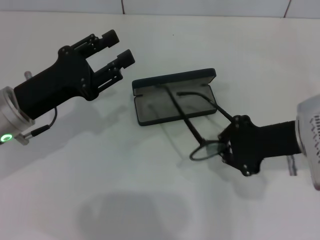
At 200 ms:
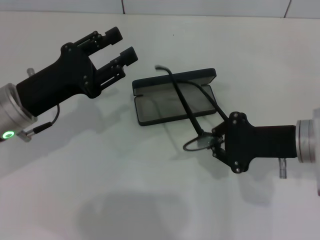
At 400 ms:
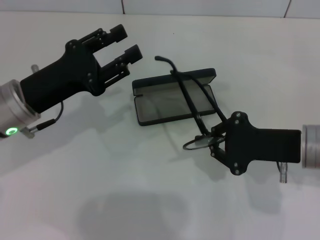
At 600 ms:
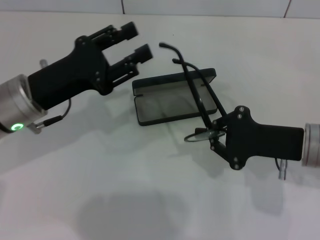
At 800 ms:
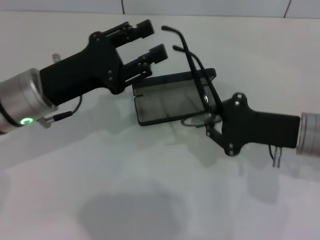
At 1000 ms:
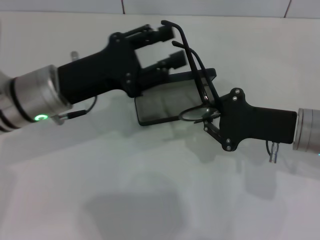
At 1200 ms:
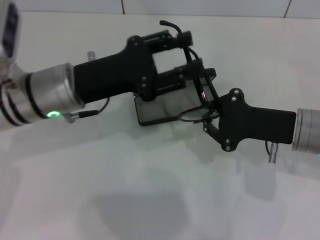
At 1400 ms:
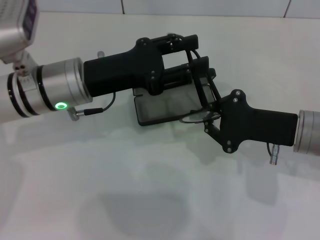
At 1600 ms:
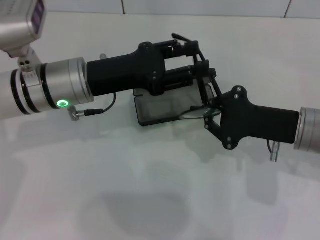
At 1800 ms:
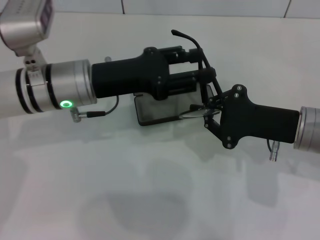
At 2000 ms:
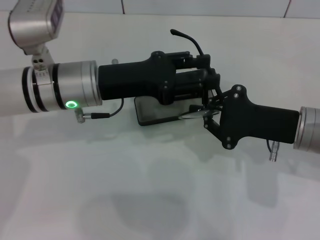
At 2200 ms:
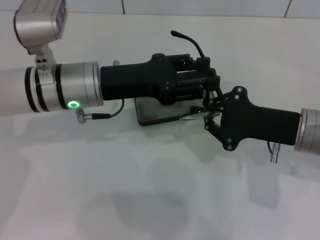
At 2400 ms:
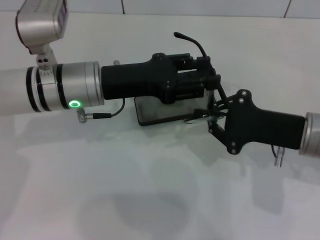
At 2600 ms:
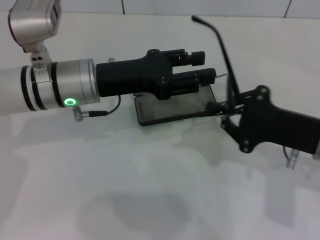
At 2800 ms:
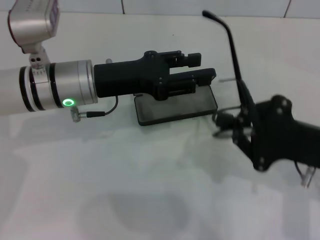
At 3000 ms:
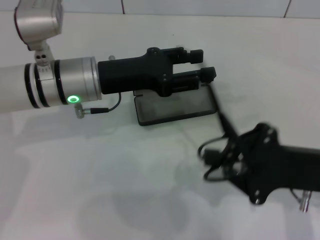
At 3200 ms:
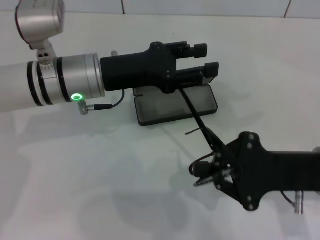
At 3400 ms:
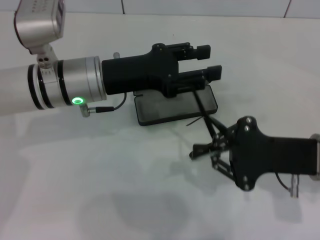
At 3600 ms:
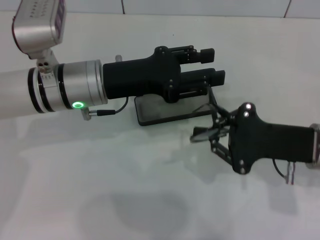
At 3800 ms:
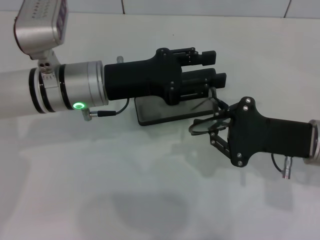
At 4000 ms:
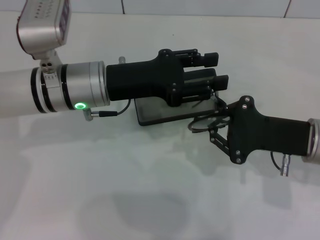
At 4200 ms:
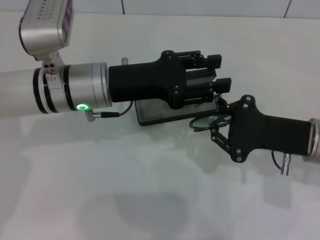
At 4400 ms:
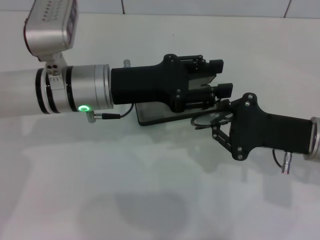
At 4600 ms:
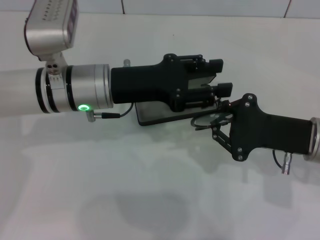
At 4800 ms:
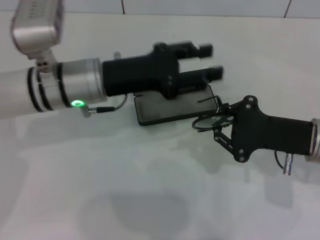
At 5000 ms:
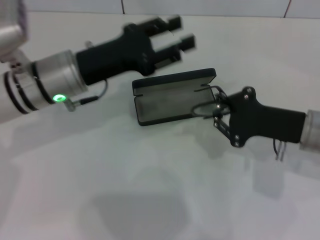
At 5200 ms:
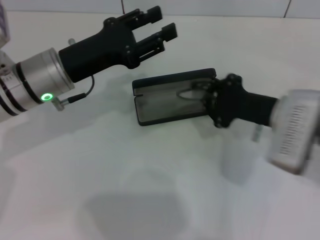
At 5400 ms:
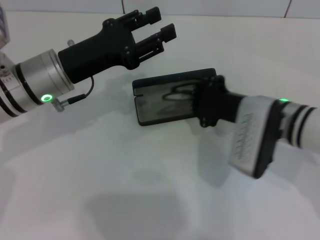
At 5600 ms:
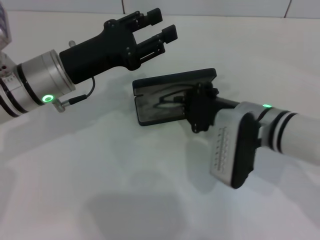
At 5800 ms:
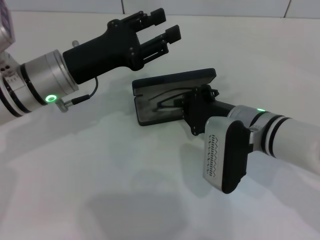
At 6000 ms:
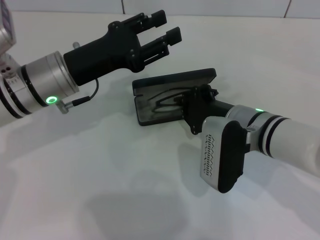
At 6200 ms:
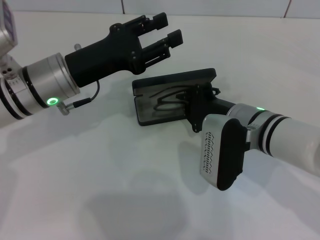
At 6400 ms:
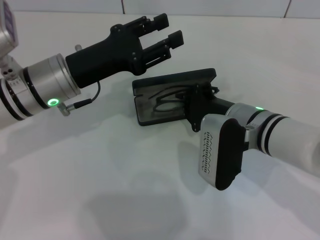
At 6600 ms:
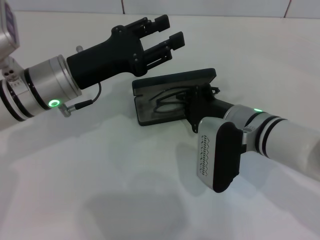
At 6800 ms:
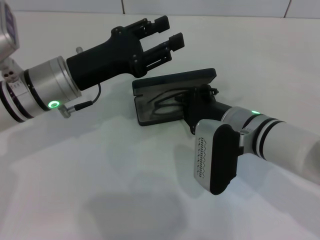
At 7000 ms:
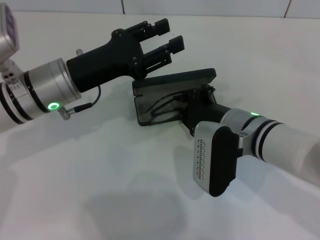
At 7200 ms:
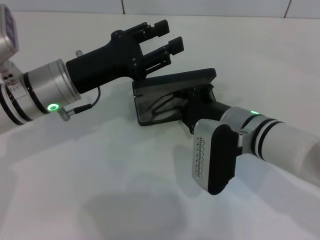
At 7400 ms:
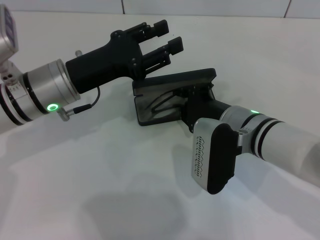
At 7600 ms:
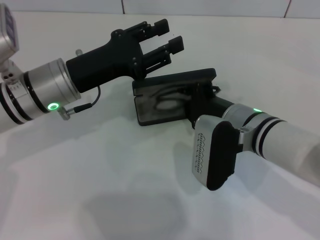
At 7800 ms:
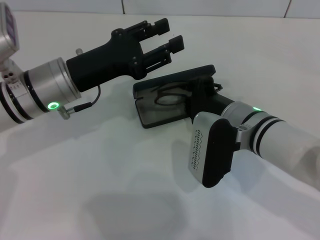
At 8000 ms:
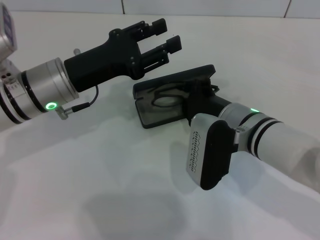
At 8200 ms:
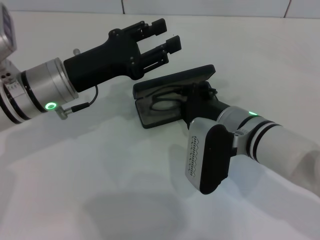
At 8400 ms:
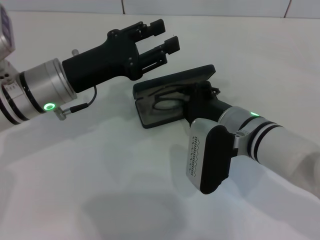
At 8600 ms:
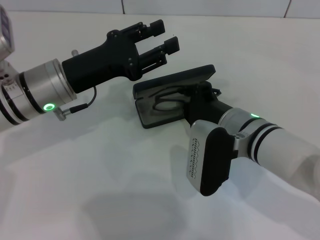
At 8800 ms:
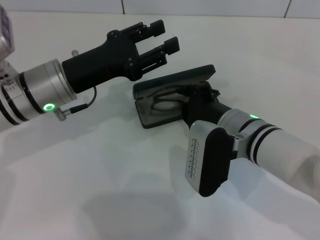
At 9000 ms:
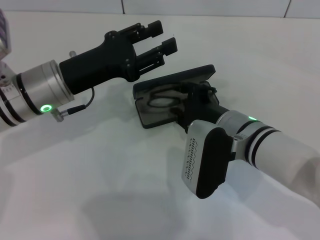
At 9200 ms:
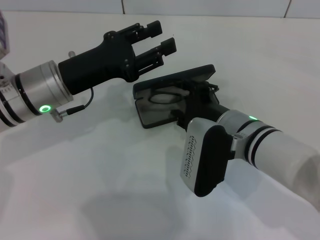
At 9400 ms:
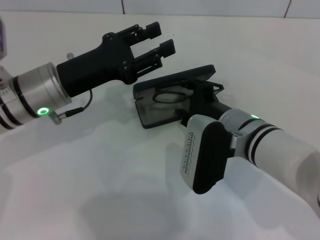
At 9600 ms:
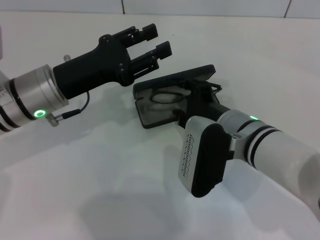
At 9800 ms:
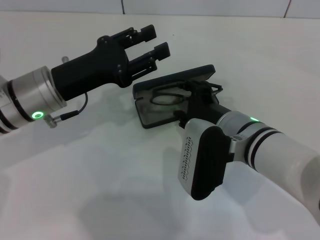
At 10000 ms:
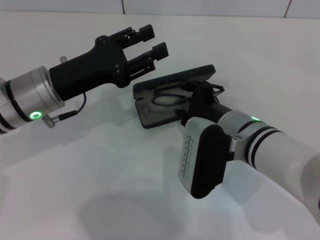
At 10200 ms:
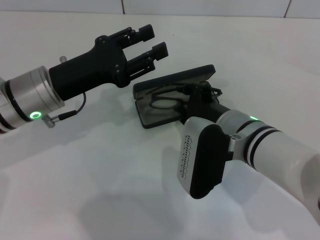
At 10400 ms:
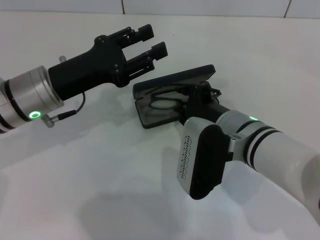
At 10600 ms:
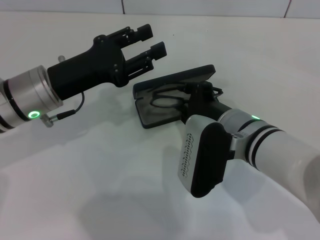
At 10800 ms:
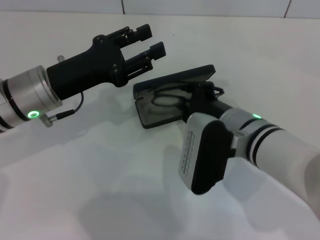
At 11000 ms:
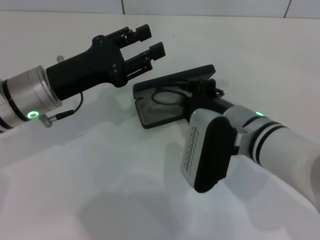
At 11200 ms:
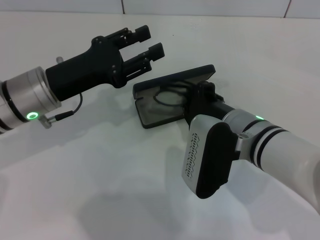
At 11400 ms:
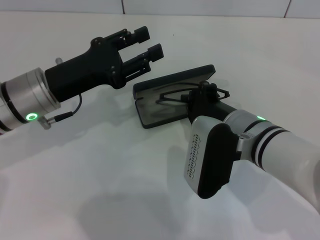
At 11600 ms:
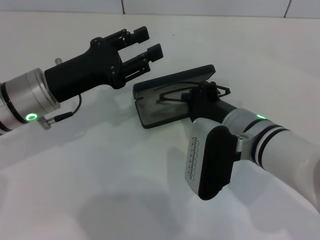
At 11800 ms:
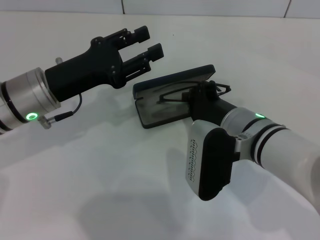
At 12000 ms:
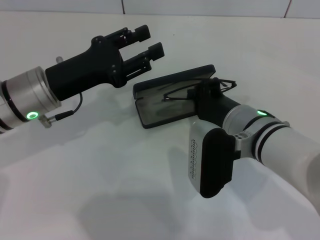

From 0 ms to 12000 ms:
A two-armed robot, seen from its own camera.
Step, from 0 ms to 4400 ms: Fold the frame with your left hand.
From 0 ms to 1600 ms: The left gripper goes some 5 cm to the right.
From 1600 ms to 3000 ms: The right gripper moves backward, about 5 cm.
From 4400 ms to 6000 ms: The right gripper heads to the left, covering approximately 10 cm.
From 6000 ms to 10400 ms: The grippers stay close to where they were, moving slightly.
From 10400 ms to 12000 ms: The right gripper closes up.

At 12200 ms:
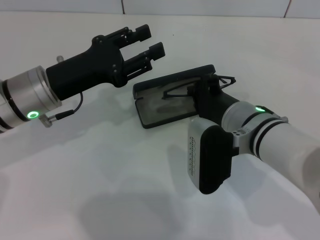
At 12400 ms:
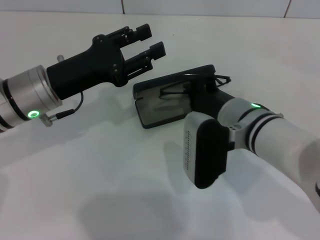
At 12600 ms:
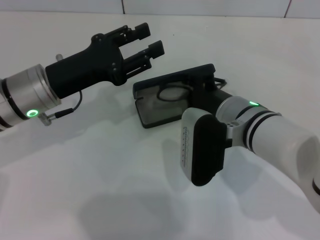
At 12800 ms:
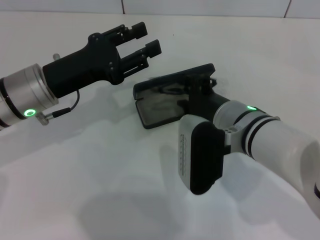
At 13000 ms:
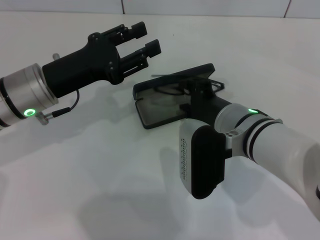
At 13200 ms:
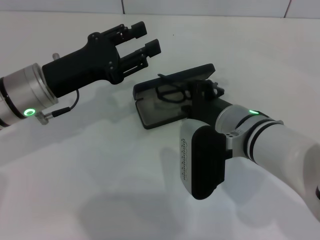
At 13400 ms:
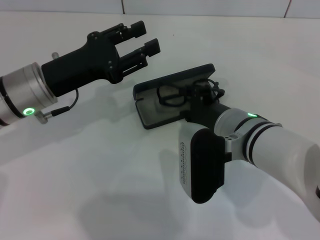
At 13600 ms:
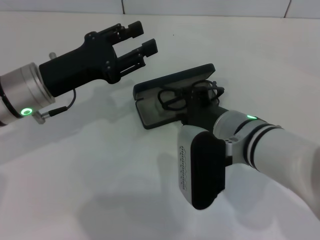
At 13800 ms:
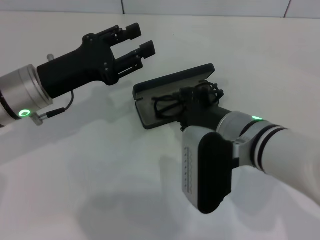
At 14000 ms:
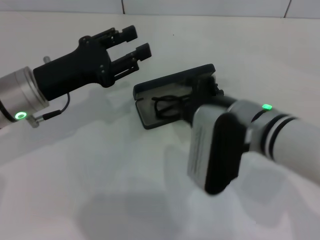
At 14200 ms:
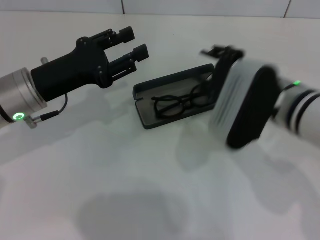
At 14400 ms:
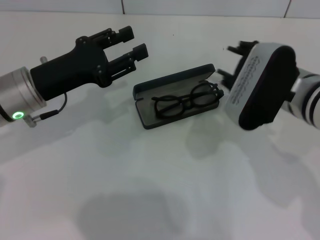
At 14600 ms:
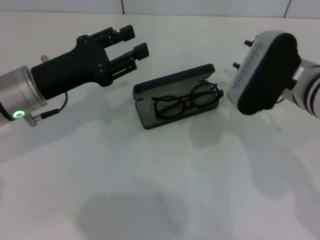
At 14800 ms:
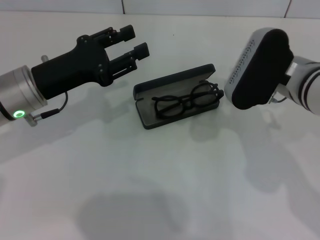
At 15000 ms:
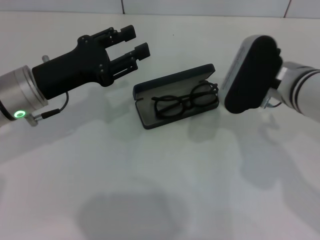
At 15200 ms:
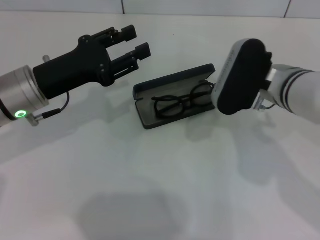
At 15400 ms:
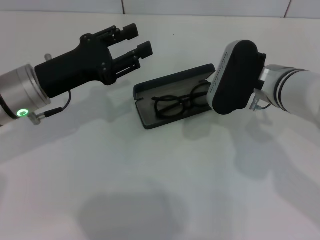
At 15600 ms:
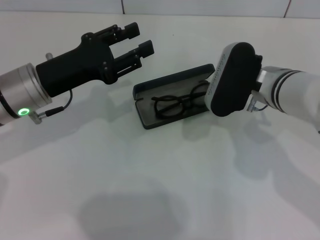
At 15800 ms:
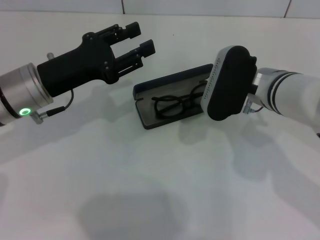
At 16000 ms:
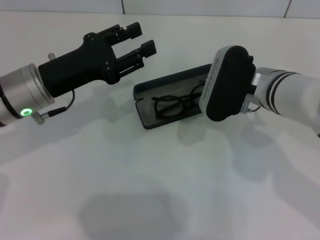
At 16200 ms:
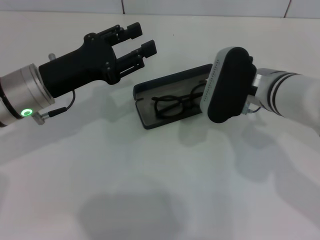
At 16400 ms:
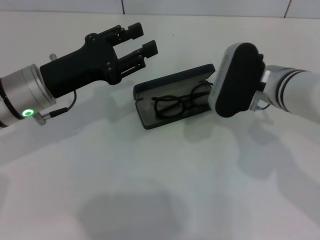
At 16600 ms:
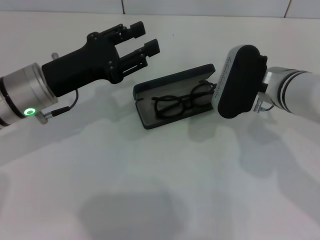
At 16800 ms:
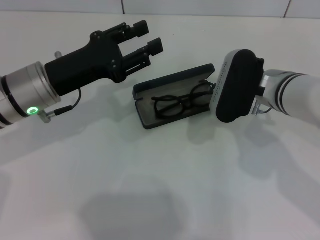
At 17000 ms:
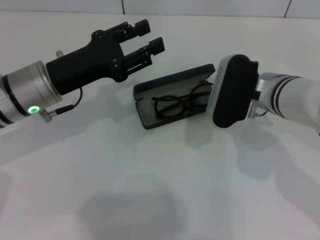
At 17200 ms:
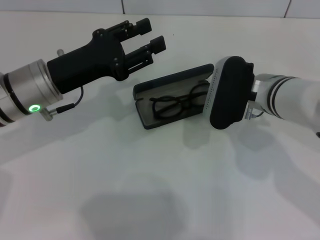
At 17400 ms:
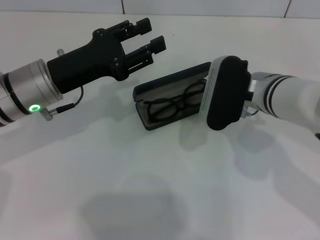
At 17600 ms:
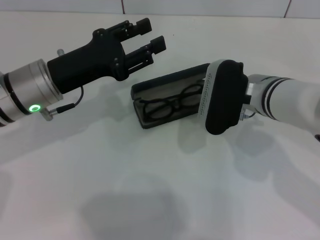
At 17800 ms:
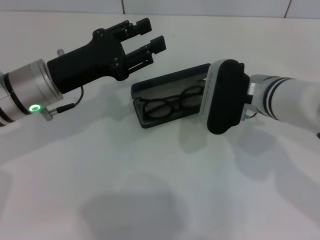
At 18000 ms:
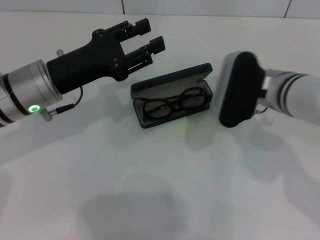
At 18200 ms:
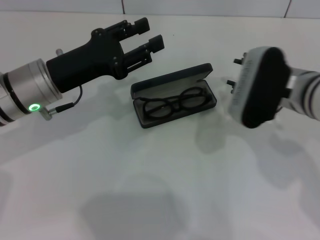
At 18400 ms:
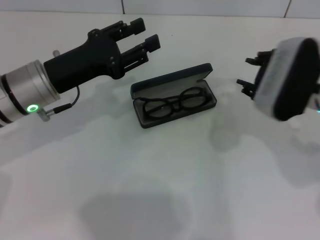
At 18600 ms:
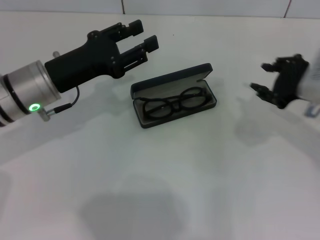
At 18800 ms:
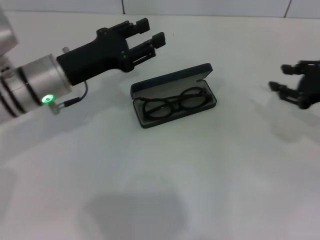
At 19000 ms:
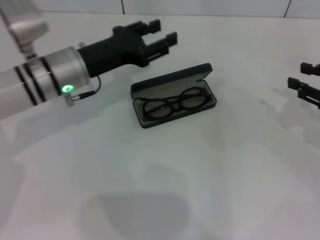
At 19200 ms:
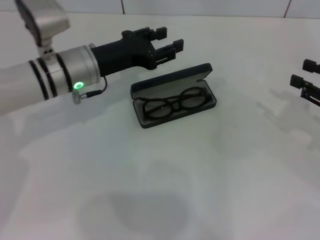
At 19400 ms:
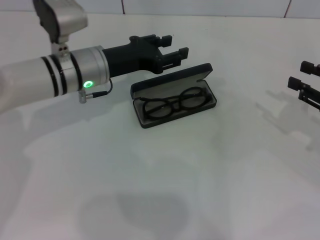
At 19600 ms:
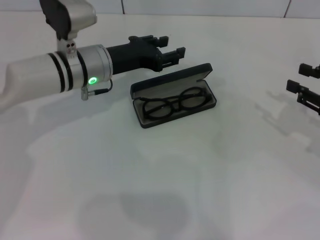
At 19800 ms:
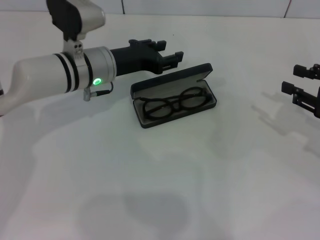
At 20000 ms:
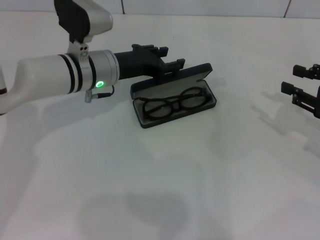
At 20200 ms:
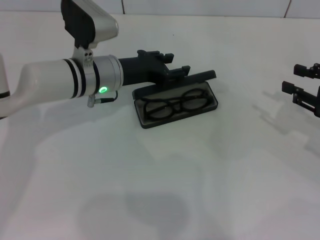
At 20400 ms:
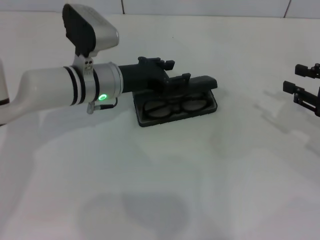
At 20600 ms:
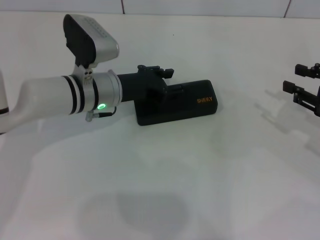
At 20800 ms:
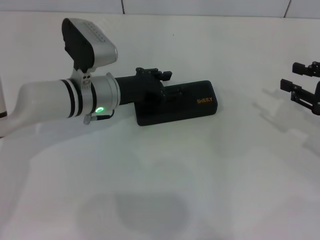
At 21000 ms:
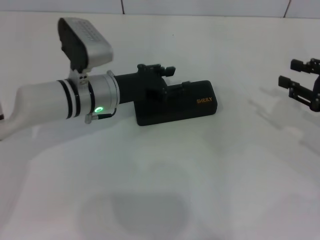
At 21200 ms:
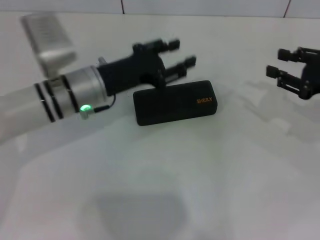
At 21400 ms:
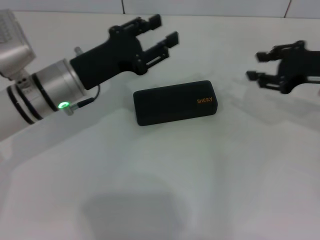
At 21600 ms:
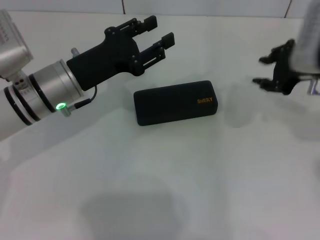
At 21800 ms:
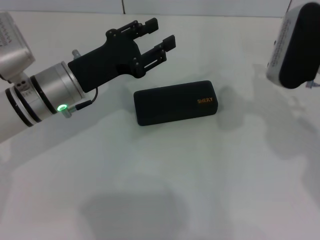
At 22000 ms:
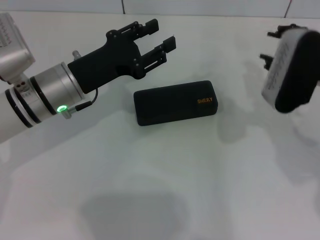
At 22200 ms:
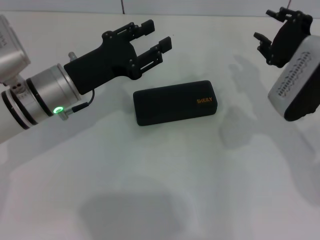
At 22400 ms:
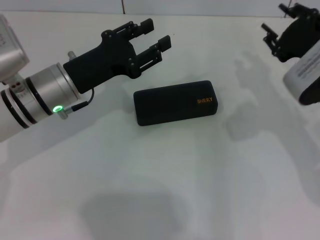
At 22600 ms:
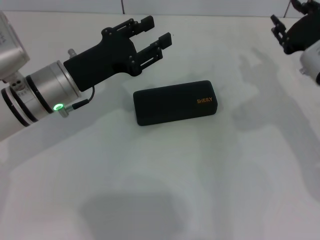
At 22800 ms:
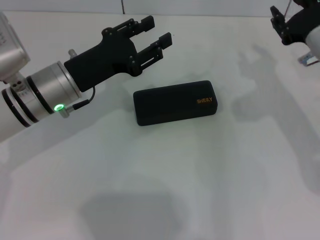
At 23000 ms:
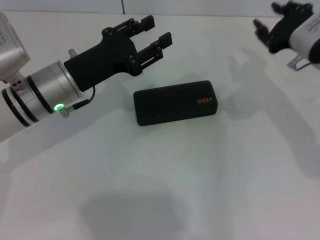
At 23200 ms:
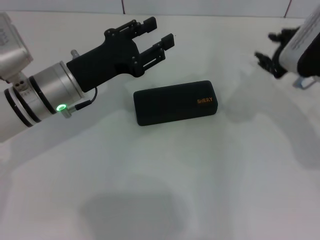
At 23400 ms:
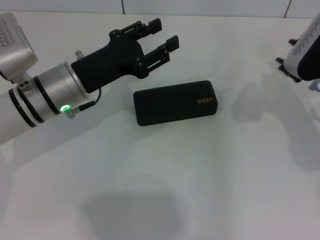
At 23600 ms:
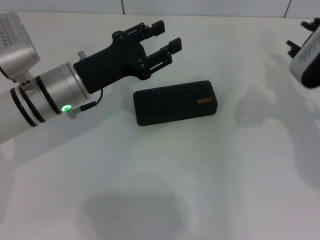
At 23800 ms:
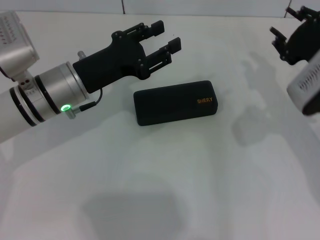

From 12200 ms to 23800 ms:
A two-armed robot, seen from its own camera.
Step, from 12200 ms to 17600 ms: Put the glasses into the case with your right hand.
Step, from 18000 ms to 20400 ms: Close the glasses case with your left hand.
From 12200 ms to 13600 ms: The right gripper opens.
From 13600 ms to 15000 ms: The right gripper travels to the right and forward by roughly 10 cm.
From 15000 ms to 18000 ms: There are only small adjustments of the grippers.
From 18000 ms to 19400 ms: The left gripper moves forward and to the right, approximately 10 cm. Meanwhile the right gripper goes approximately 20 cm to the right.
From 19400 ms to 21000 ms: The grippers move only a little.
From 21000 ms to 22400 ms: The right gripper shifts some 10 cm to the left. The left gripper changes place by roughly 5 cm.
